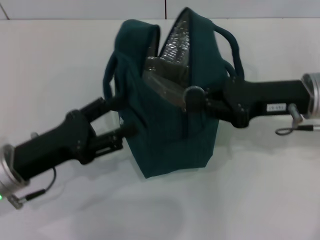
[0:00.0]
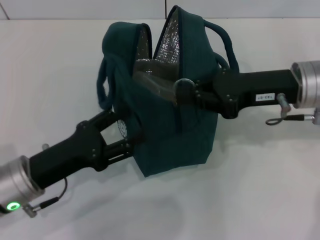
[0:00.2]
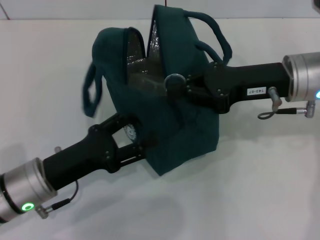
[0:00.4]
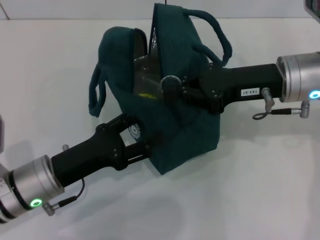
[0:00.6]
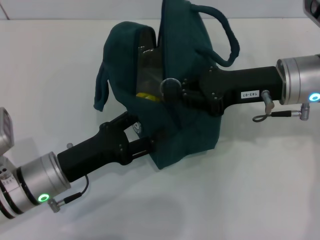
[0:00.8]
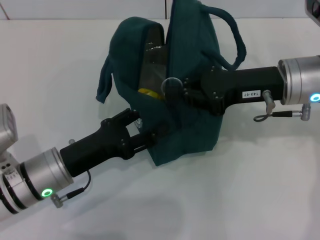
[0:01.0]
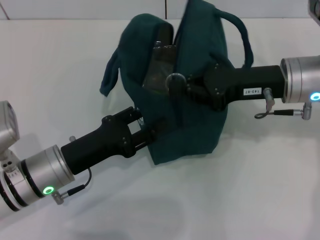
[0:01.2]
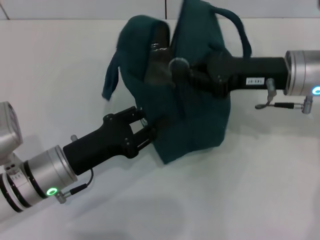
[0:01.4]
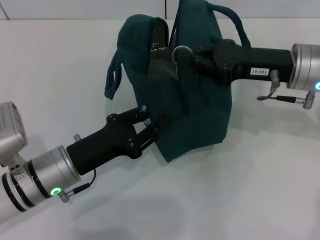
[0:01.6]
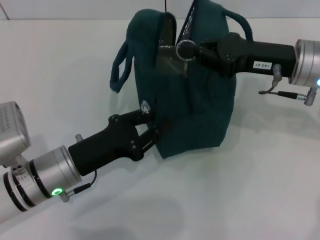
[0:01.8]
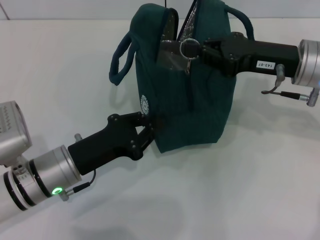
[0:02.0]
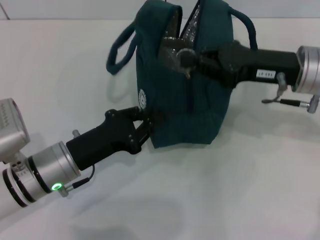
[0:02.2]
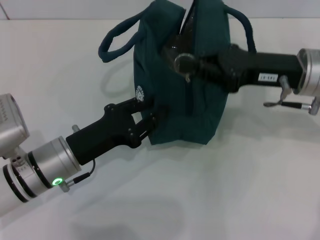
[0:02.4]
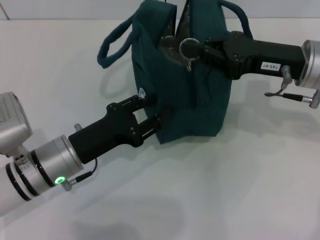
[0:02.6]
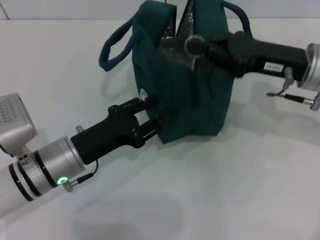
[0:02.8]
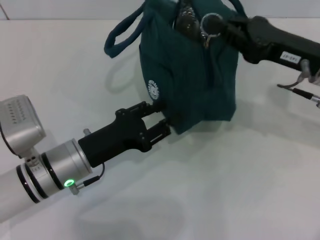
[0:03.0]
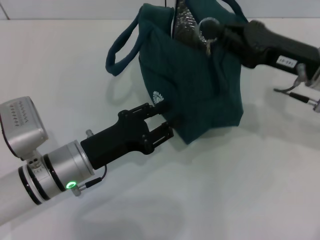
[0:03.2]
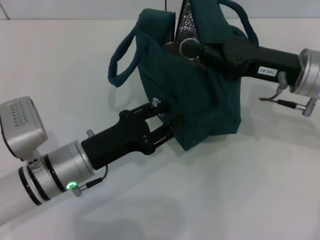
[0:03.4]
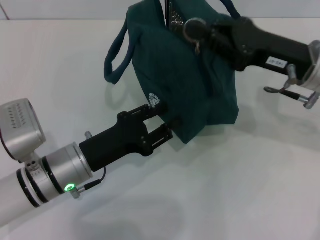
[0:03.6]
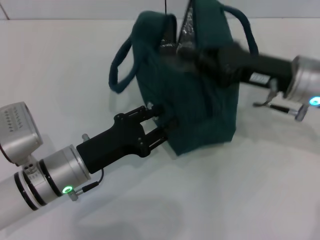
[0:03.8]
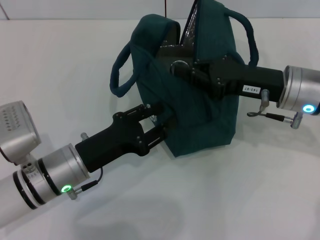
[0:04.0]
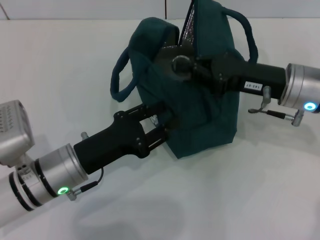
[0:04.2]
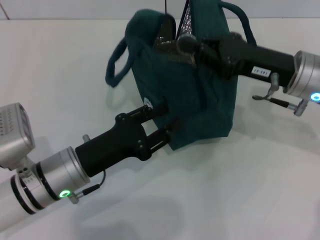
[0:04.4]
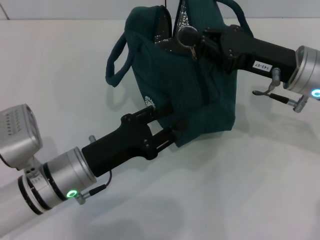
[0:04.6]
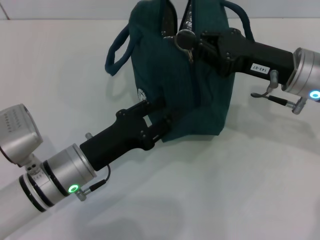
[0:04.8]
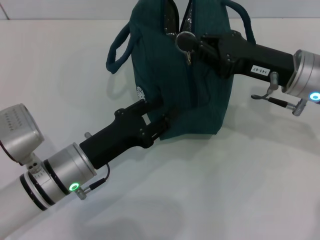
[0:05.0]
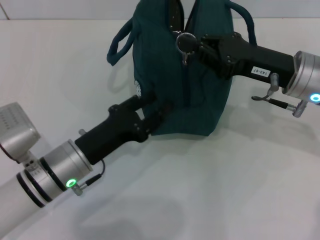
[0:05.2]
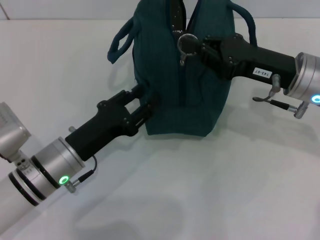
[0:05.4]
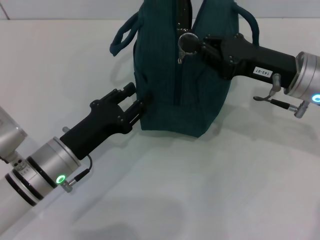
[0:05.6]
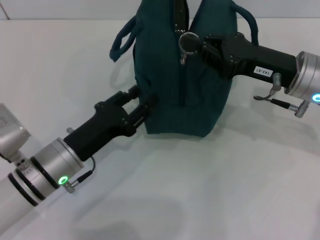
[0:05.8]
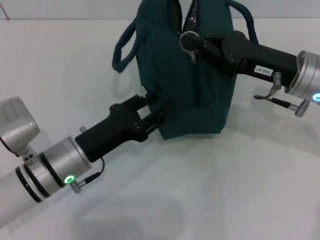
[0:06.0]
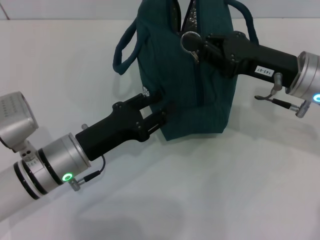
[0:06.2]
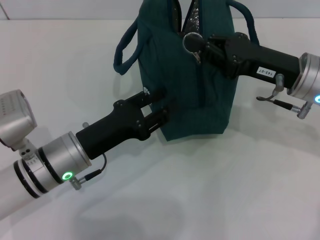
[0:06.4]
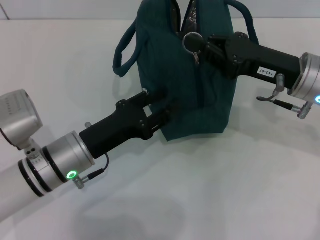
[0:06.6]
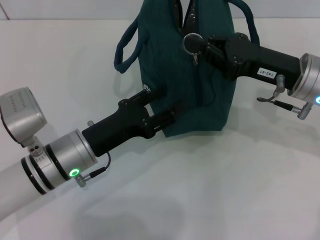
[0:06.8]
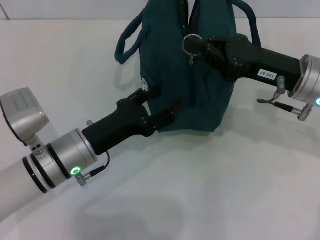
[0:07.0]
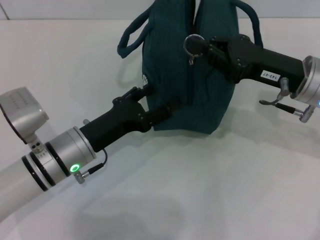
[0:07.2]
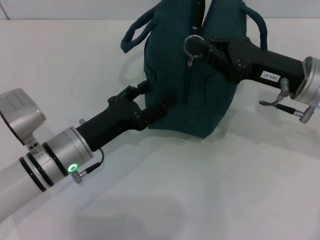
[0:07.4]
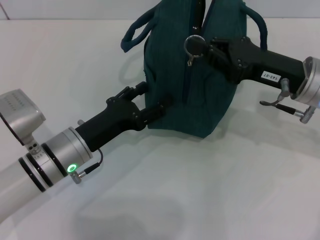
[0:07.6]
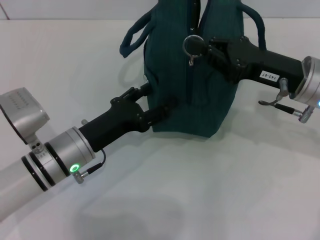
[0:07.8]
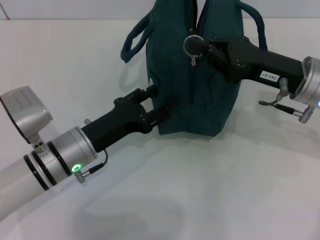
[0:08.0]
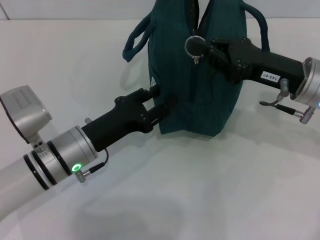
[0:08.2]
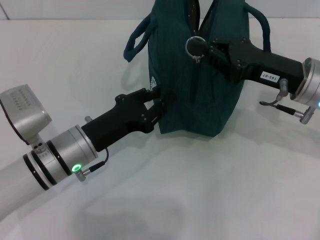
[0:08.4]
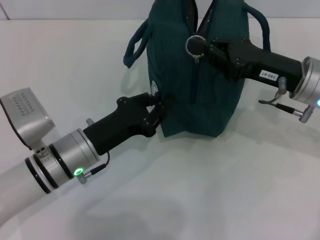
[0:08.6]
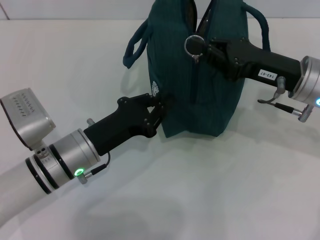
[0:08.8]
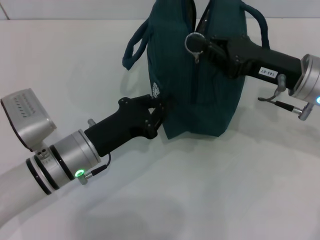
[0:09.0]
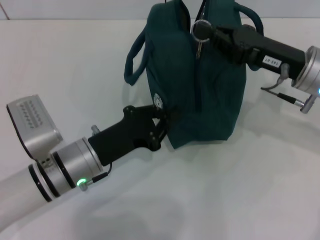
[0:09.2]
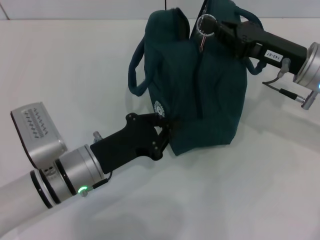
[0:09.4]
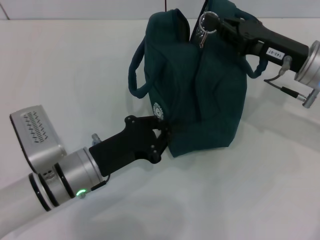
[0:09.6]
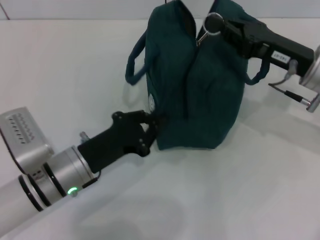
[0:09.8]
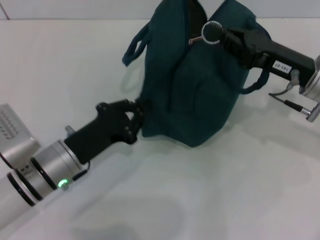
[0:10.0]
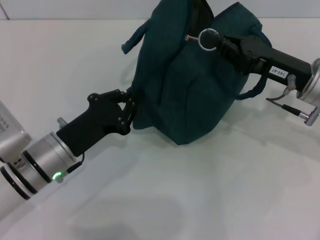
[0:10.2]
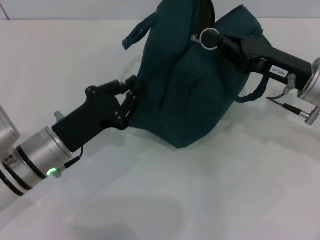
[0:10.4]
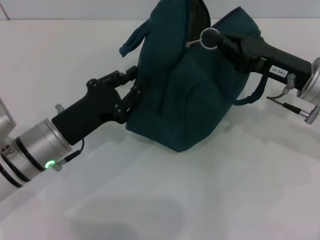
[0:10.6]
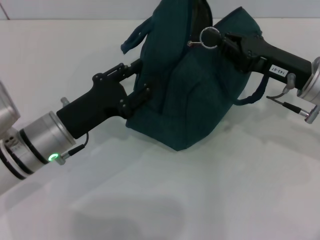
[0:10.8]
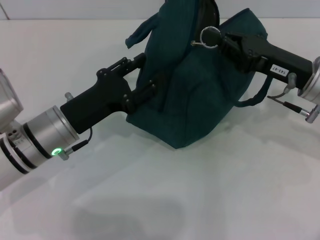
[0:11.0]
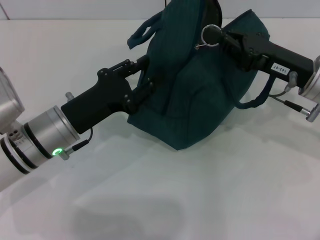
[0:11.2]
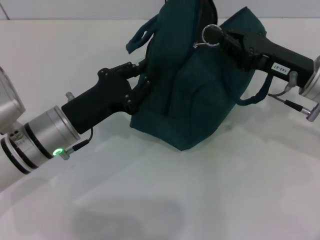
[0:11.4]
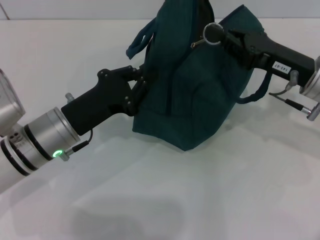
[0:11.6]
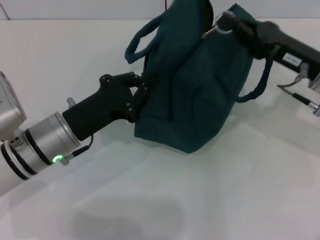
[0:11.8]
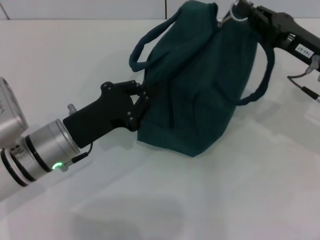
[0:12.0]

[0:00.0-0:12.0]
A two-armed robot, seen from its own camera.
0:00.0 to 0:01.6: The left gripper moves to the right, roughly 5 cm, and closes.
0:01.6 to 0:03.0: The left gripper closes, then reopens.
0:04.4 to 0:06.0: There are only small adjustments of the grippers.
0:06.0 to 0:07.6: The left gripper opens up.
0:07.6 to 0:09.0: The left gripper closes up.
0:10.4 to 0:12.0: The left gripper opens and closes again.

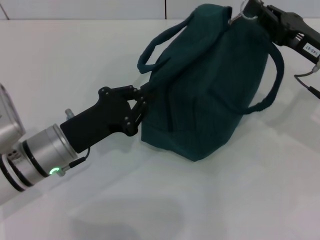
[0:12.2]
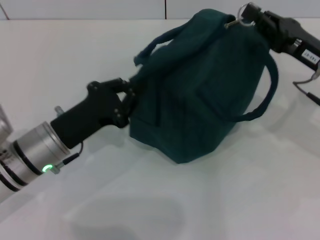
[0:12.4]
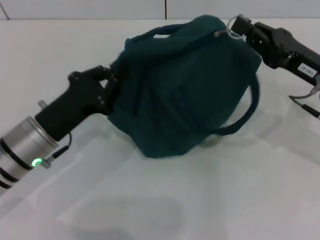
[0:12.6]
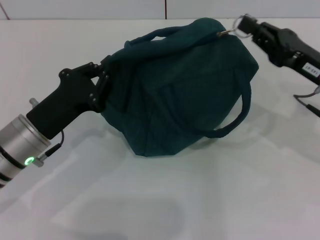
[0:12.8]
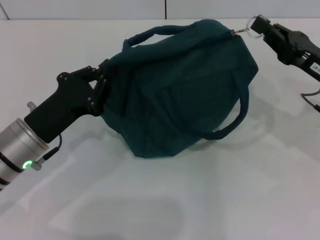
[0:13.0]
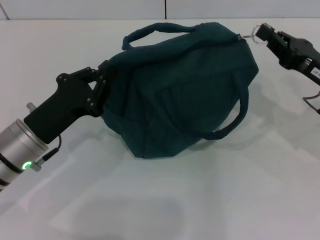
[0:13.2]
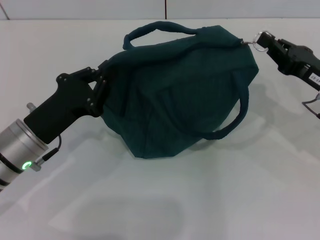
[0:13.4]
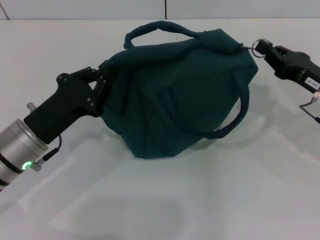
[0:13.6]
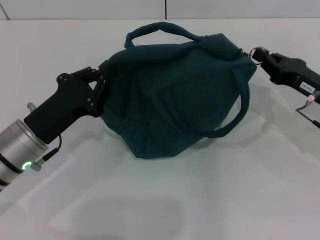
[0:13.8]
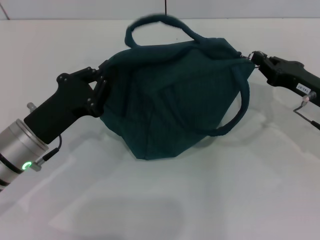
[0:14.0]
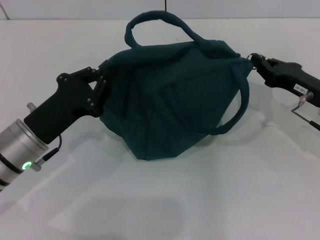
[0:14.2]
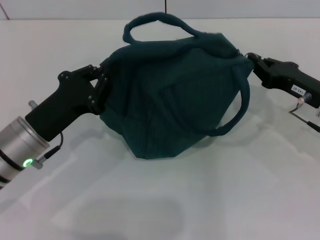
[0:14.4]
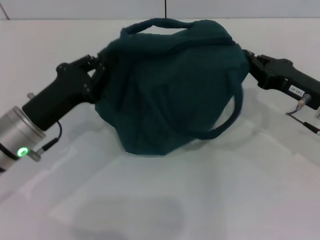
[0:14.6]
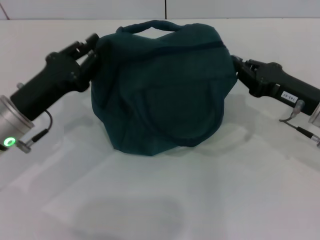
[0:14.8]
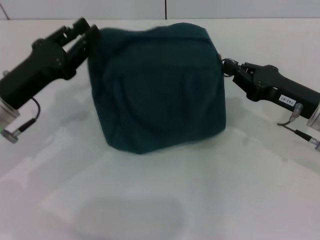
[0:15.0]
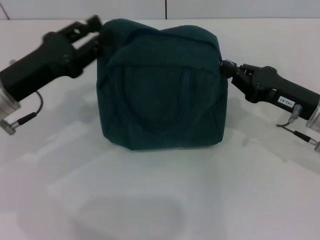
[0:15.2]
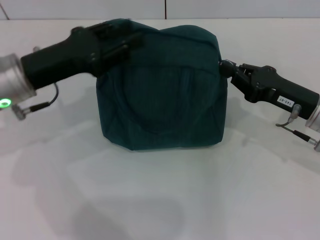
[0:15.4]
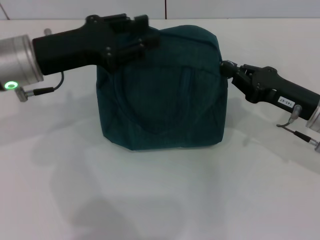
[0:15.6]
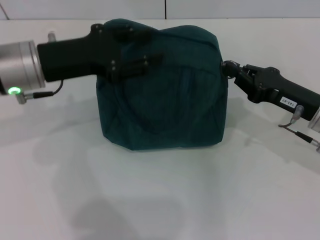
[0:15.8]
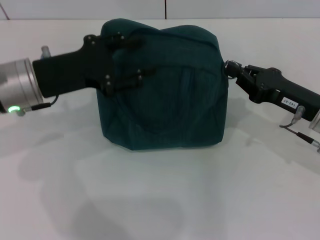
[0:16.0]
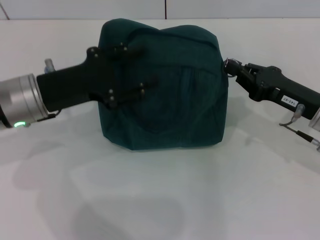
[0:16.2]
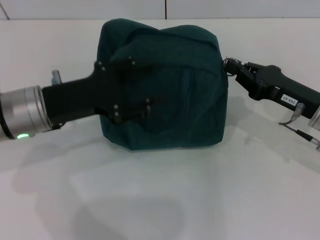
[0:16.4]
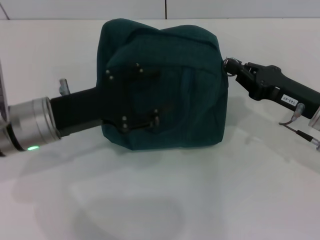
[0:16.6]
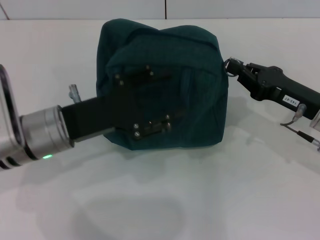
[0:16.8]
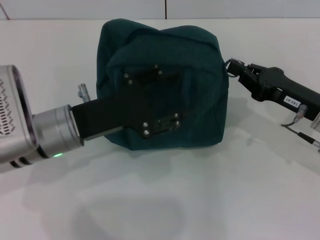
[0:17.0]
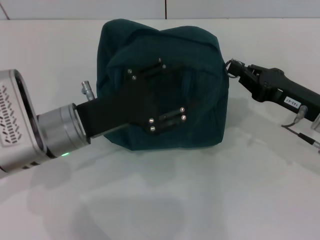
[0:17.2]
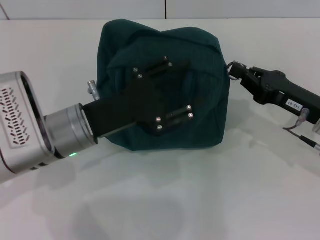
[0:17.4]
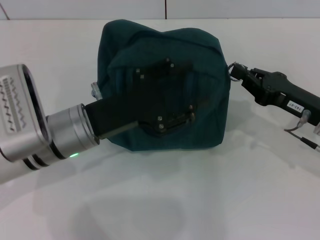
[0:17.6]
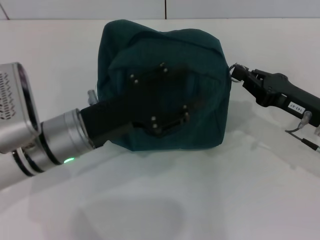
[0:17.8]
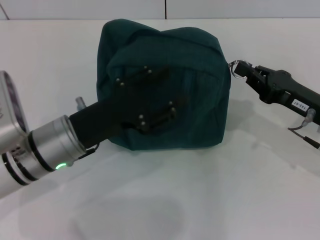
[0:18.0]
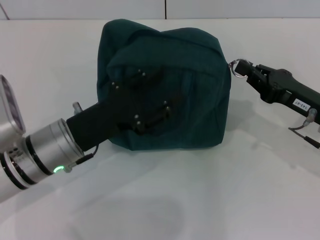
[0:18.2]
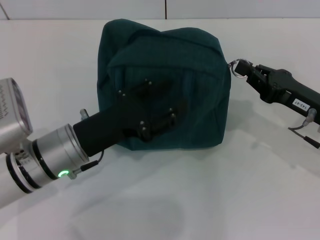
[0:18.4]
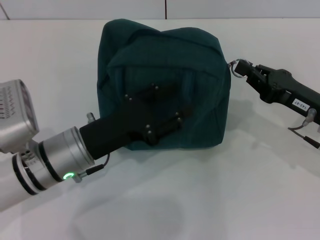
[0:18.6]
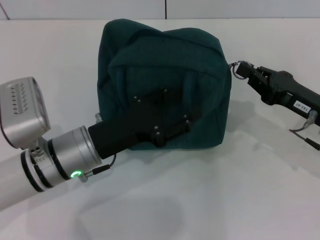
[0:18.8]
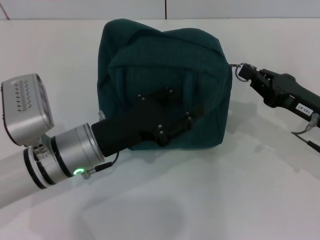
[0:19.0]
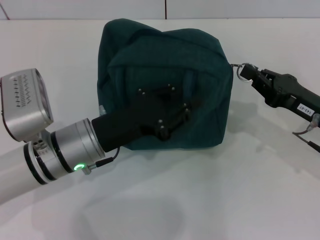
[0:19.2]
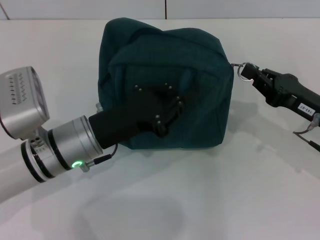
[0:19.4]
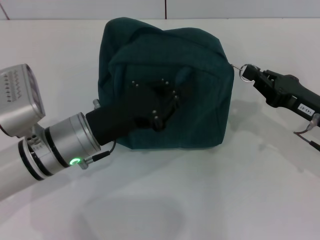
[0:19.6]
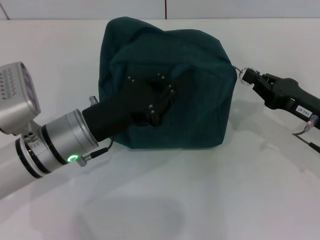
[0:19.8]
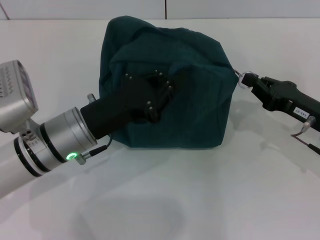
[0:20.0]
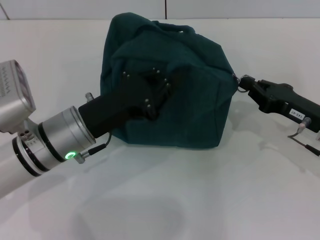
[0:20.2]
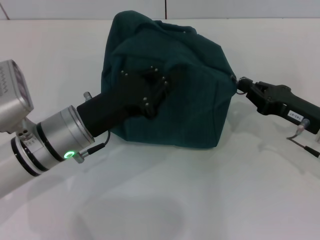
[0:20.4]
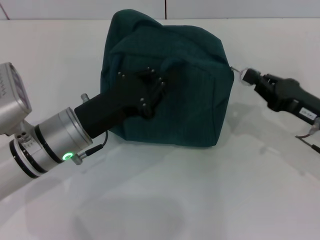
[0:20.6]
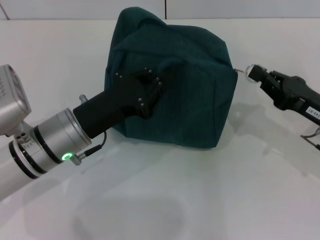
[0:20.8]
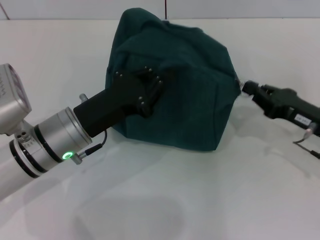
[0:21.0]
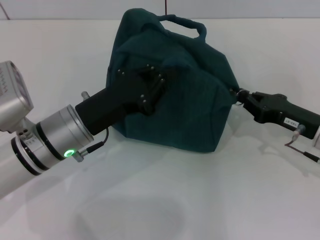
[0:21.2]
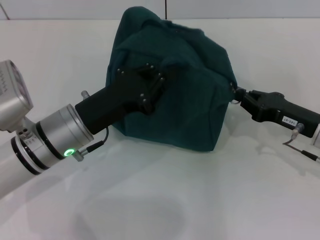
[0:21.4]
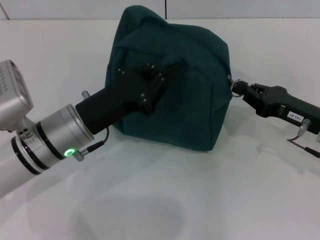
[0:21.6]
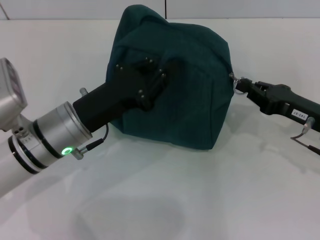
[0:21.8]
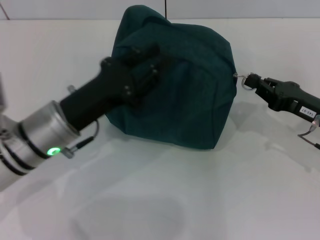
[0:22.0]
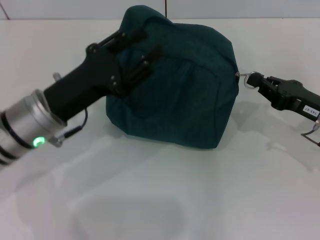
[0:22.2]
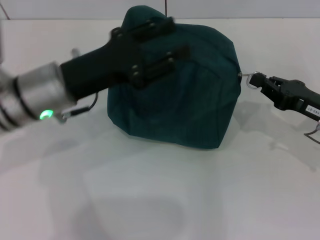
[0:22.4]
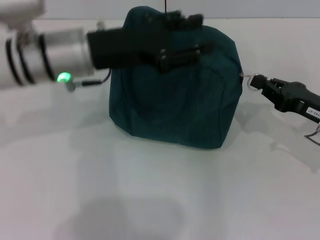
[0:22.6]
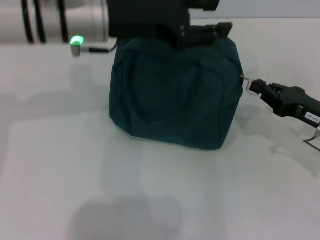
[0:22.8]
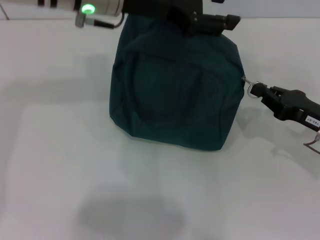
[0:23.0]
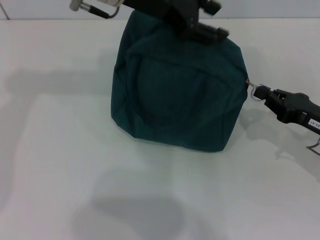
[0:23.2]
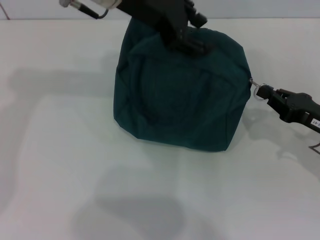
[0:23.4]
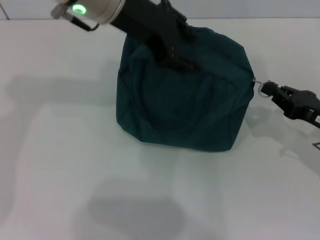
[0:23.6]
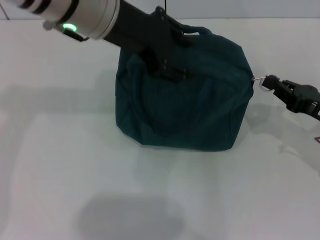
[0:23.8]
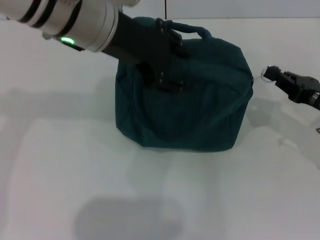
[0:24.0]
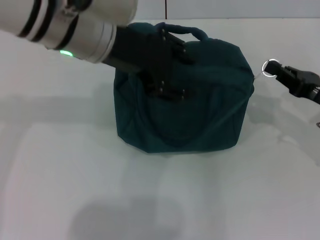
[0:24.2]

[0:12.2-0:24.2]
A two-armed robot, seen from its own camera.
0:12.2 to 0:13.8: The right gripper is displaced downward by approximately 5 cm.
0:13.8 to 0:15.2: The left gripper moves upward, approximately 5 cm, and opens.
0:15.2 to 0:16.6: The left gripper changes place by about 5 cm.
0:18.2 to 0:19.8: The left gripper closes.
0:19.8 to 0:21.2: The grippers make only small movements.
0:21.2 to 0:22.6: The left gripper shifts roughly 10 cm upward and forward, and opens.
0:22.6 to 0:24.2: The left gripper moves upward, roughly 5 cm.
